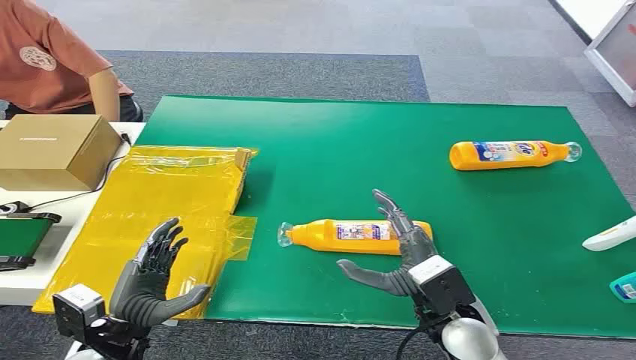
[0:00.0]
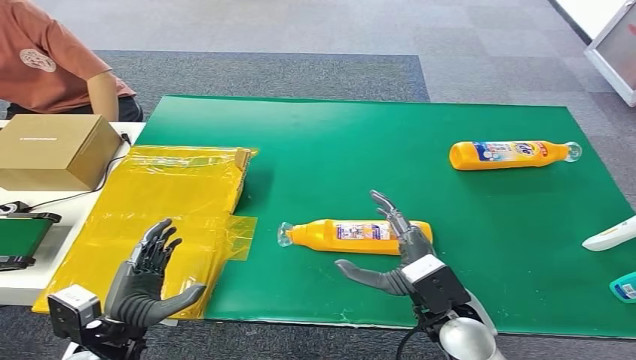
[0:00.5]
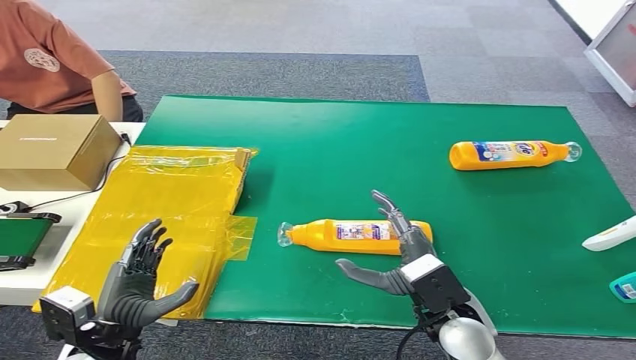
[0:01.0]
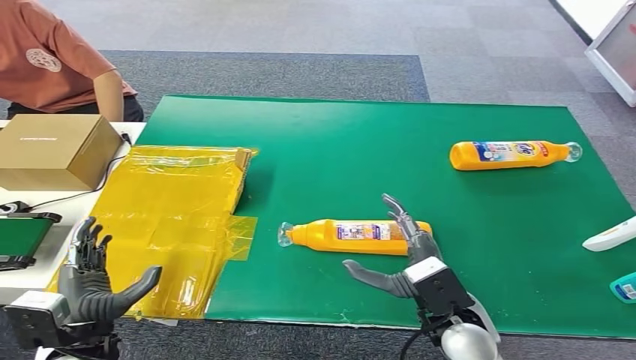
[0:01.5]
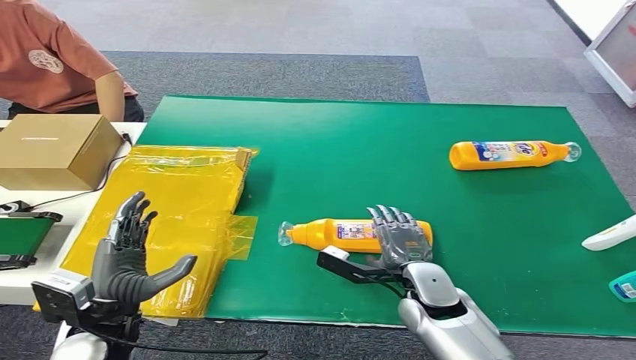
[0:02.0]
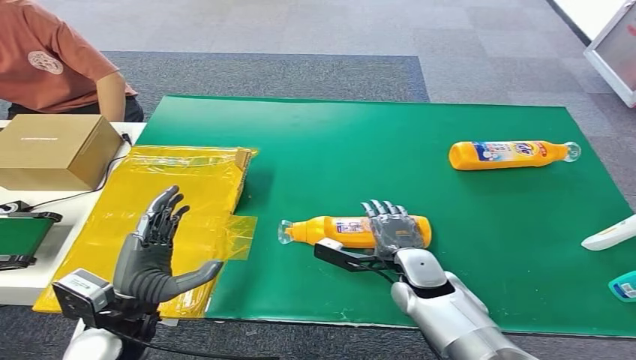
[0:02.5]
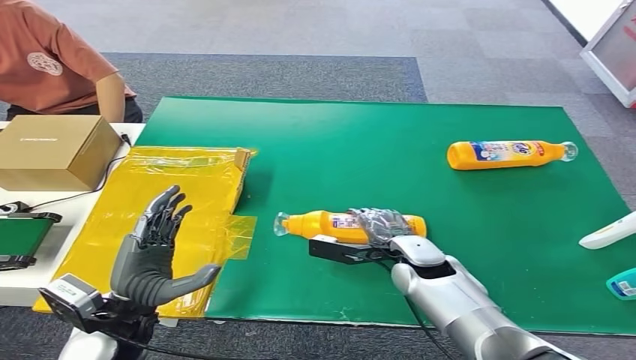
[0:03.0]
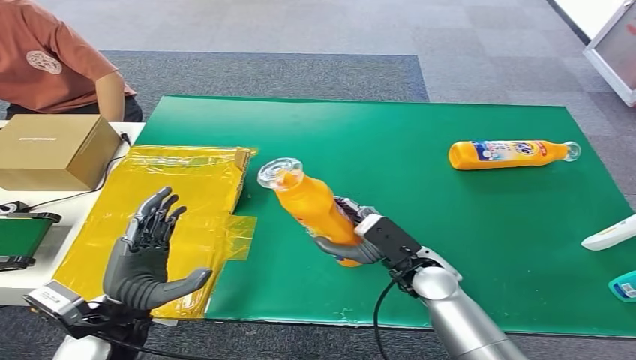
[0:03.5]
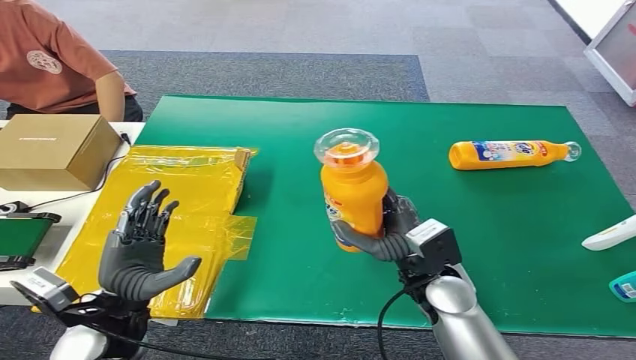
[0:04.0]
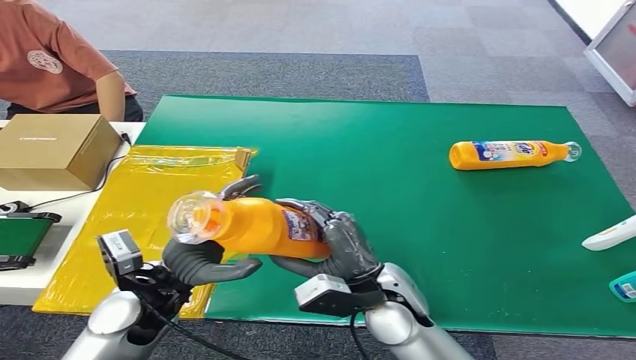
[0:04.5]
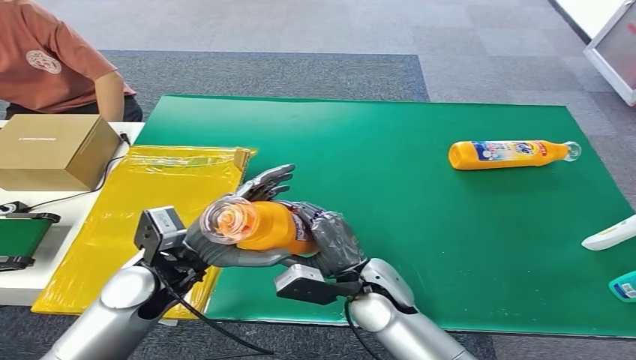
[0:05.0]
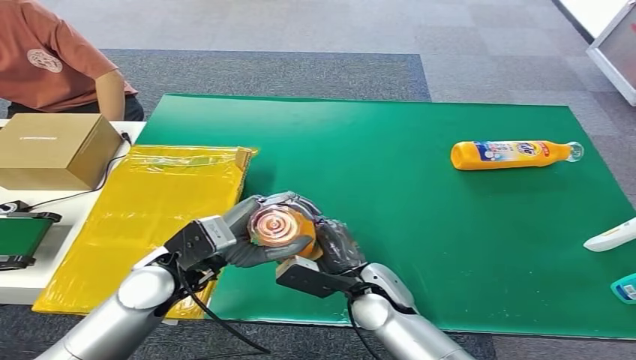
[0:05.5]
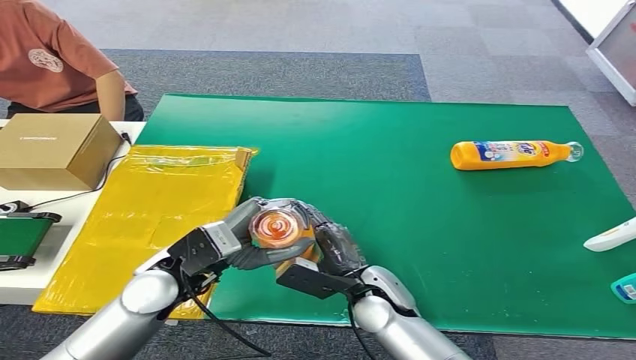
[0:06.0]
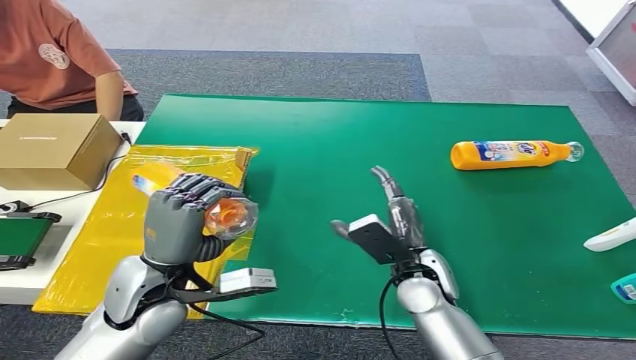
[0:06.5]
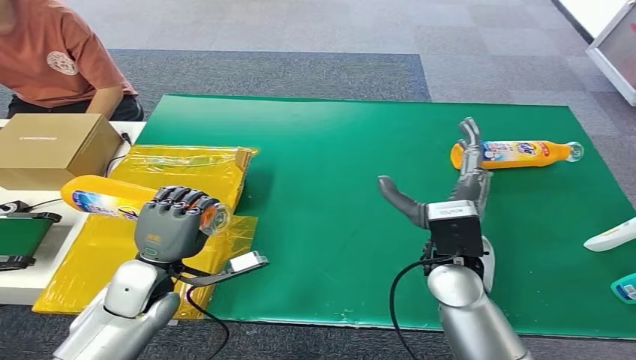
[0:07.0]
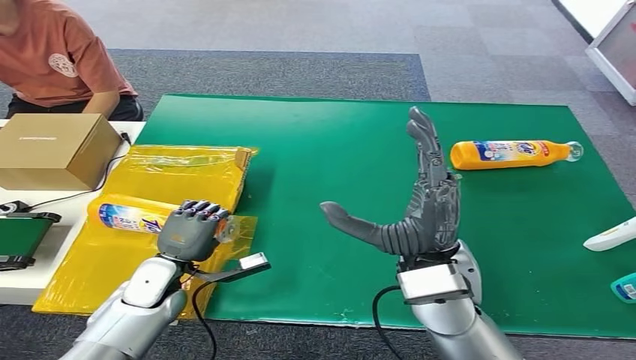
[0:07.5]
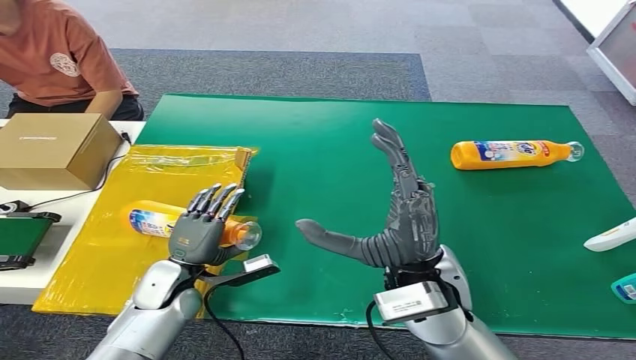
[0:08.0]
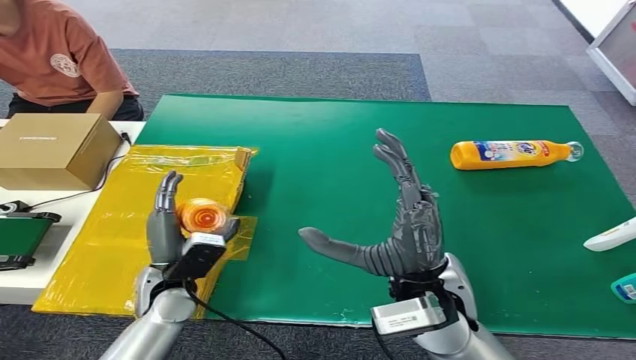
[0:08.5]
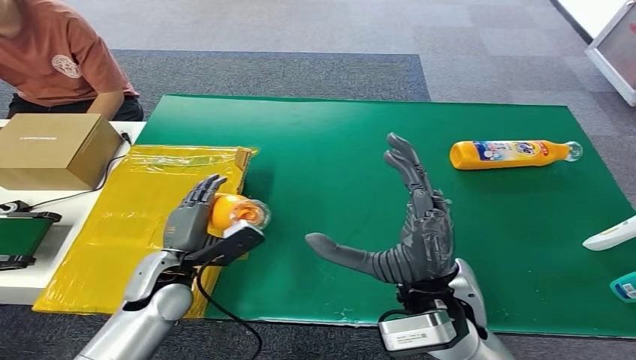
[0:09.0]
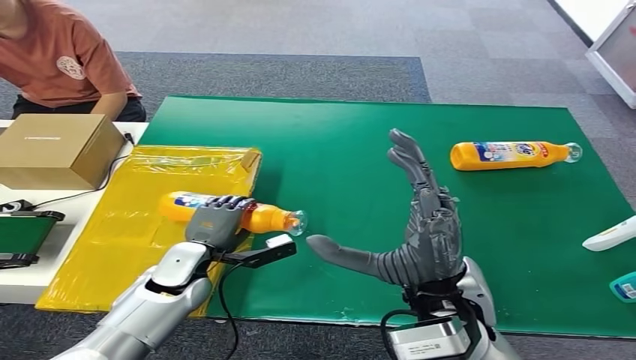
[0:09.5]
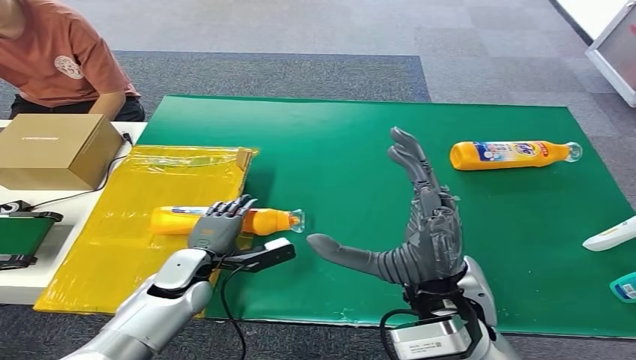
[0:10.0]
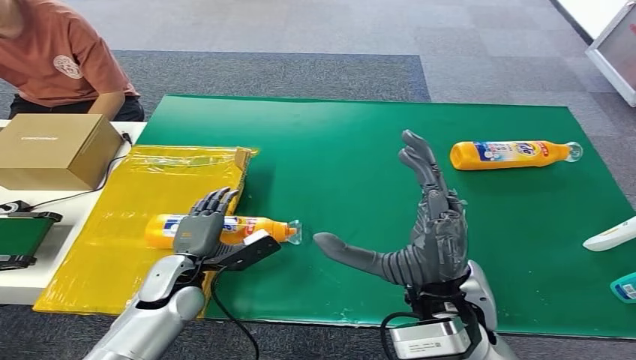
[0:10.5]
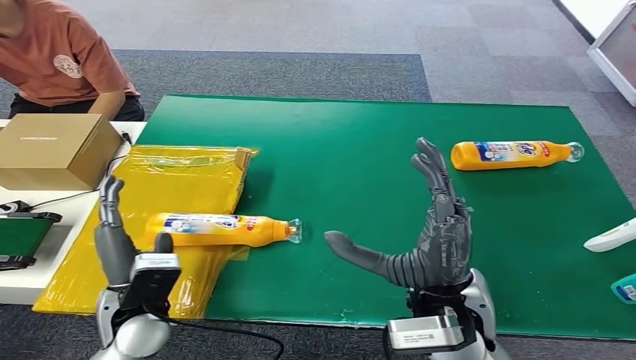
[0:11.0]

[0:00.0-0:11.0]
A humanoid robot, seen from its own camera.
Step, 0:00.0 to 0:03.5: Pick up the bottle from the table.
Step, 0:04.0 to 0:11.0: Turn the bottle to the front side.
0:05.5 to 0:07.5: The left hand shifts some 15 cm downward and to the left, while the right hand heads upward, covering approximately 15 cm.
0:07.5 to 0:09.0: The left hand shifts about 5 cm upward.
0:09.0 to 0:11.0: The left hand moves backward, some 5 cm.
